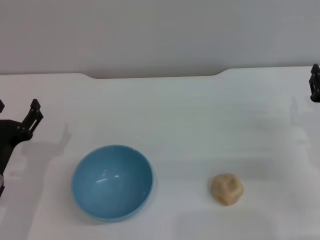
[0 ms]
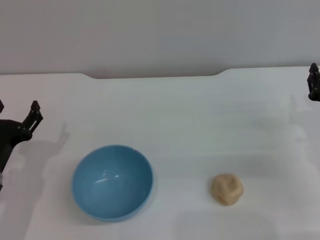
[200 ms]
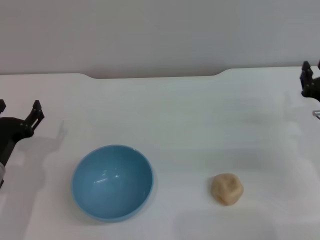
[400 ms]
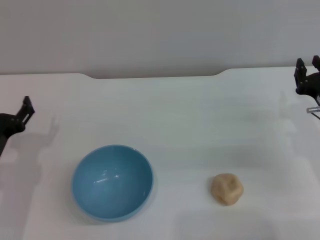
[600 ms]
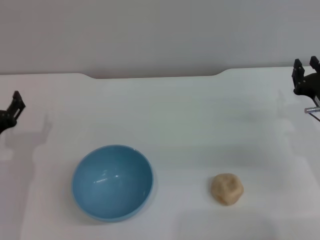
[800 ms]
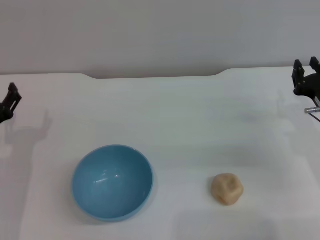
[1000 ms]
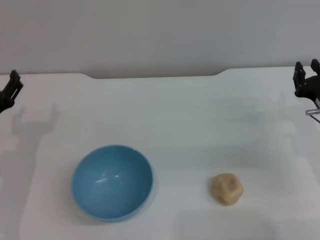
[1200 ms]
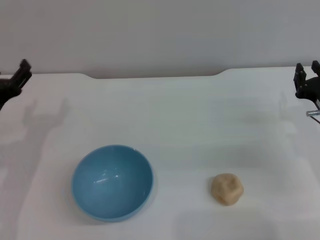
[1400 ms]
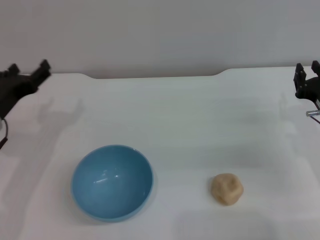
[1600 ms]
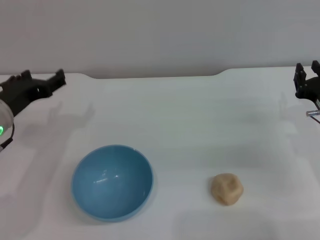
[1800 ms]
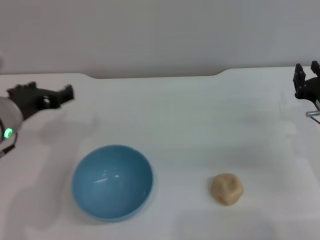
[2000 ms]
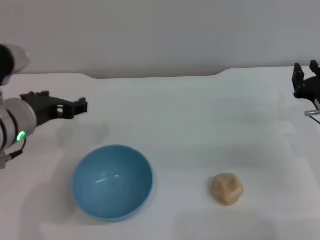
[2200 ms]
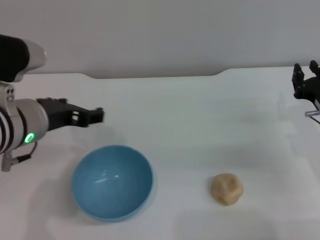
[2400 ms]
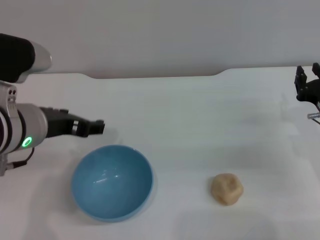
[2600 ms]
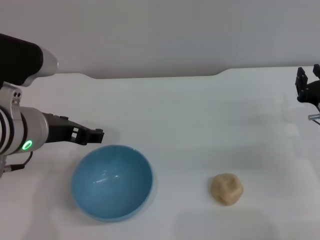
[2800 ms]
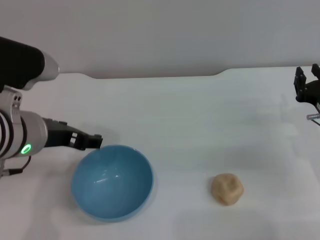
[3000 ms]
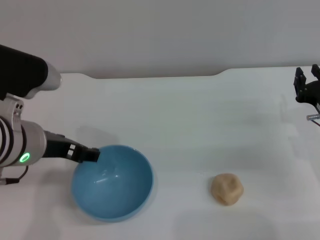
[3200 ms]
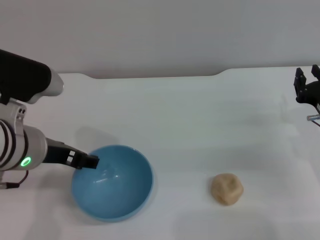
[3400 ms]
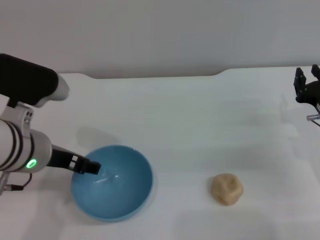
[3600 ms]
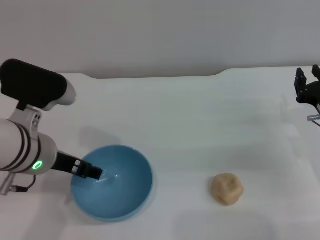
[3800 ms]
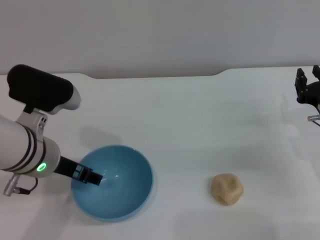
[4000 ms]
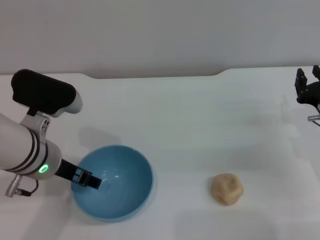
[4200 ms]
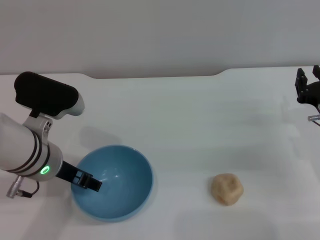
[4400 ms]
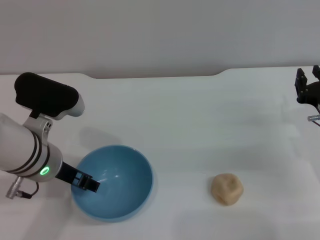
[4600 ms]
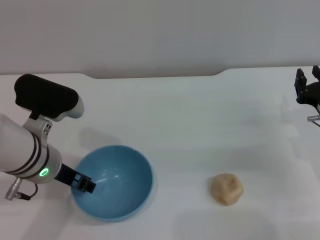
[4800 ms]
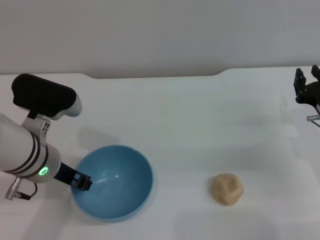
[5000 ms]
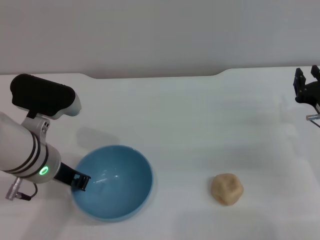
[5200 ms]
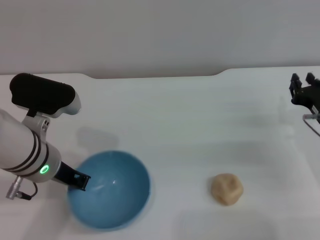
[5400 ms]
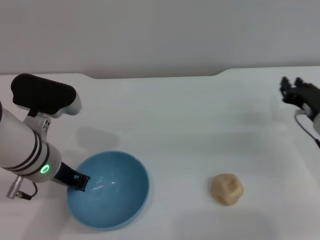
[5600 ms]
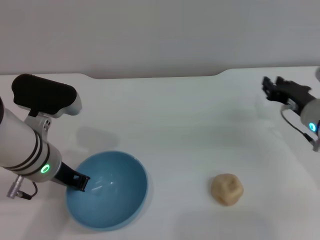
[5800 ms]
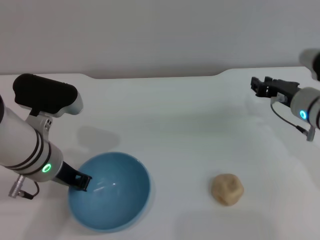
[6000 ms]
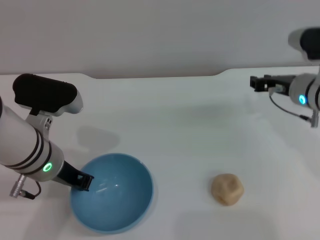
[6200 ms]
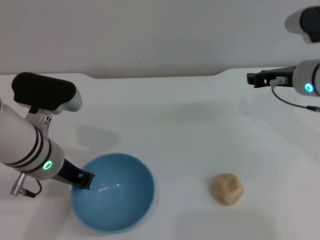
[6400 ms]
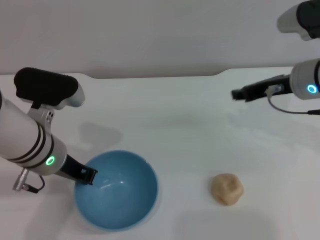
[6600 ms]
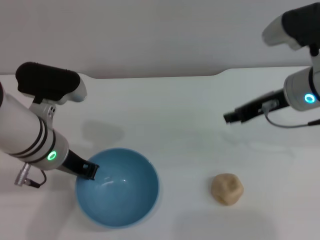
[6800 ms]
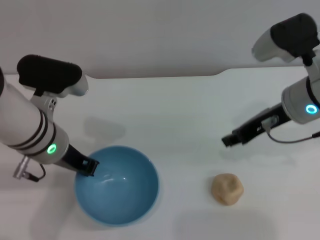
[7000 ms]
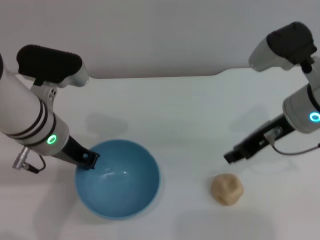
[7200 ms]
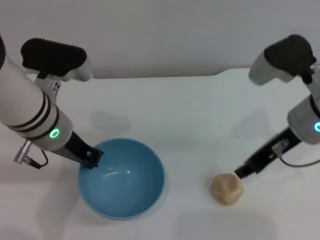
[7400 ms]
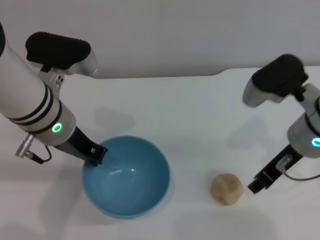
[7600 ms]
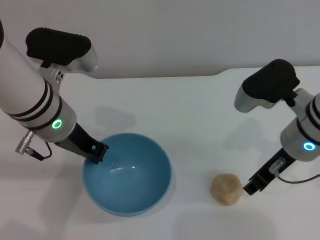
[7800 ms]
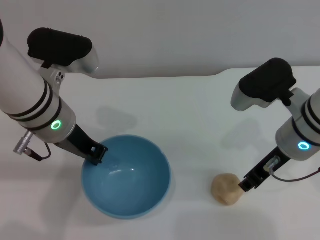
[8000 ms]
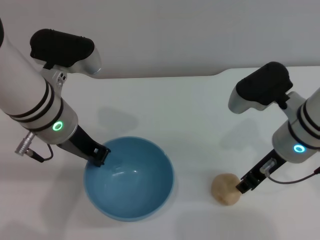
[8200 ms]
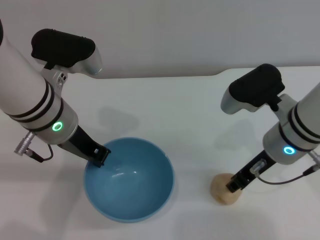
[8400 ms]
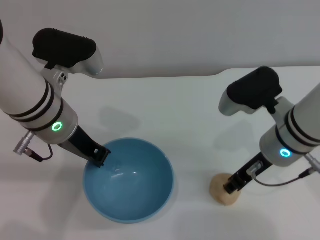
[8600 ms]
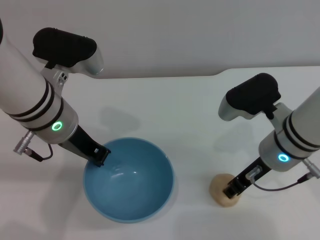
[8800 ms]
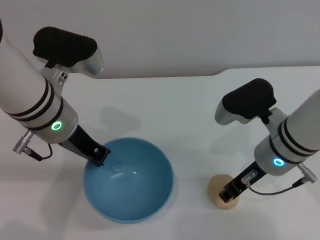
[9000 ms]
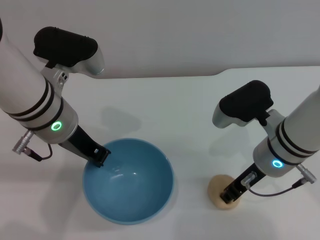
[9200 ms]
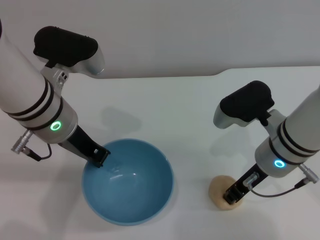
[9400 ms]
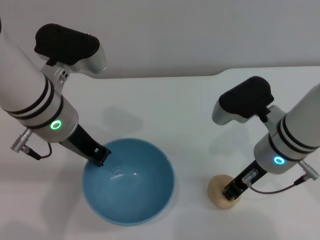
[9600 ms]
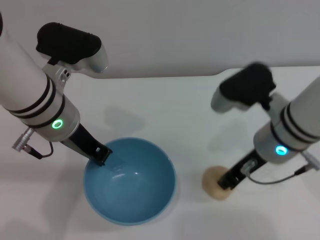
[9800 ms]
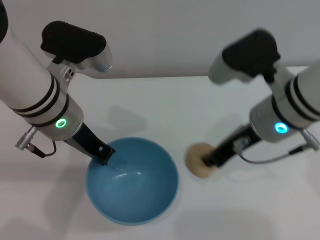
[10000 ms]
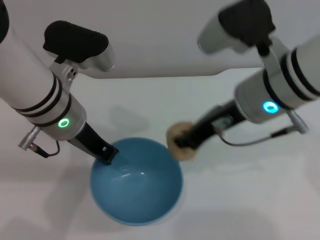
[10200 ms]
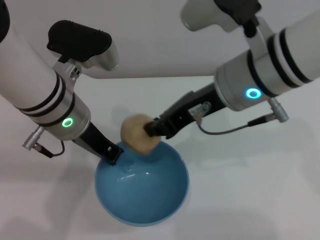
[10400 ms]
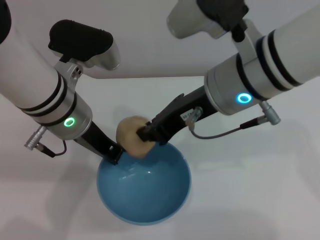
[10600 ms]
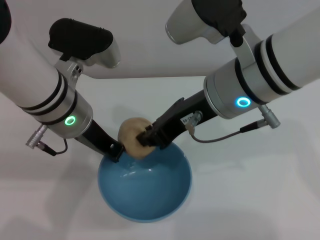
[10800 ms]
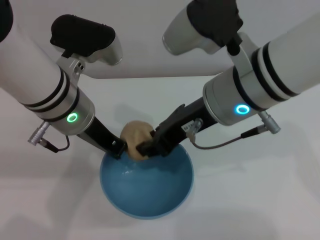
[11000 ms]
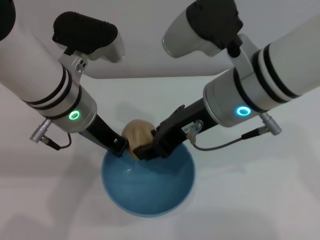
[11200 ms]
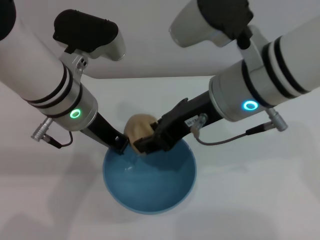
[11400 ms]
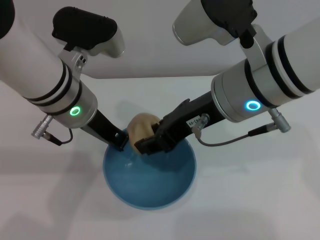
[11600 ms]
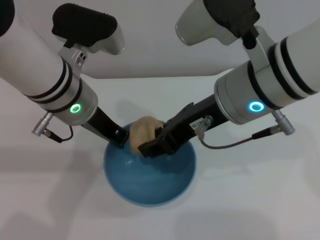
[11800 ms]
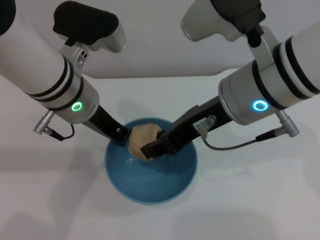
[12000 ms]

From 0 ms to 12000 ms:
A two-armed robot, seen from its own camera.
Task of the whole recording: put the egg yolk pastry into the blue bowl and pour it out repeatedly.
Step, from 0 ms to 7800 ms: Pick up the bowl with the left gripper.
Step, from 8000 ms to 10000 ms: Pick up the egg yolk pastry with the right gripper.
From 0 ms to 1600 ms: The left gripper heads forward and upward, covering approximately 10 cm.
From 1600 ms to 3000 ms: The left gripper travels to the right and upward by roughly 15 cm.
From 3000 ms to 4400 ms: The left gripper shifts about 5 cm downward.
From 4400 ms to 6000 ms: The left gripper closes. Meanwhile the right gripper goes about 5 cm forward.
From 6000 ms to 7600 ms: The right gripper shifts roughly 10 cm upward, backward and to the left. Meanwhile the left gripper is displaced upward by approximately 5 cm.
From 7600 ms to 9000 ms: The right gripper shifts by about 5 cm.
From 9000 ms to 10400 ms: The right gripper travels upward and to the left by roughly 15 cm, and closes up.
From 10400 ms to 12000 ms: The right gripper opens.

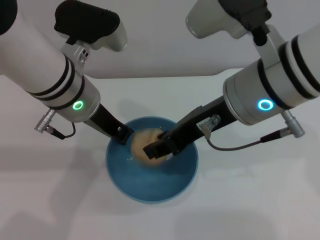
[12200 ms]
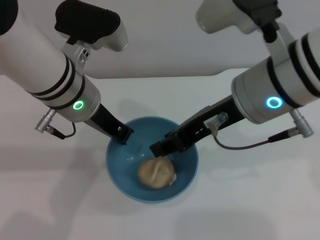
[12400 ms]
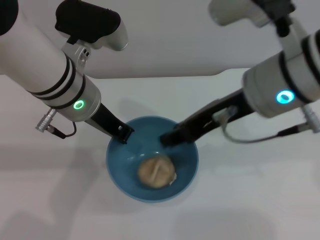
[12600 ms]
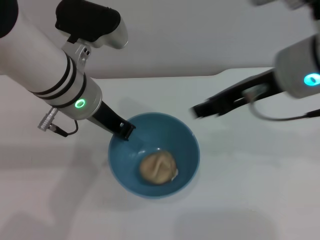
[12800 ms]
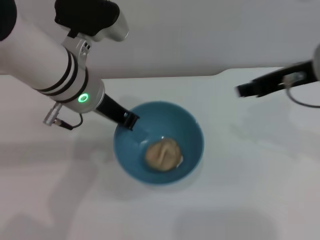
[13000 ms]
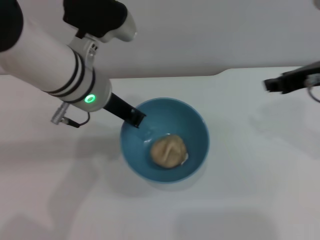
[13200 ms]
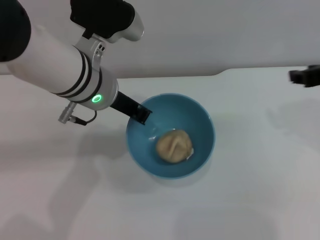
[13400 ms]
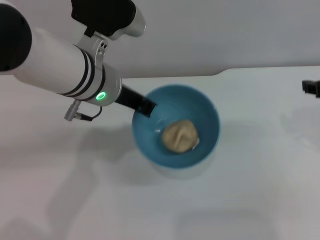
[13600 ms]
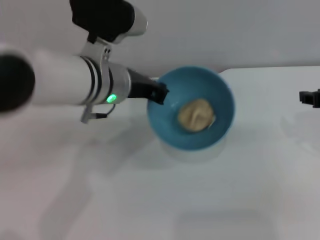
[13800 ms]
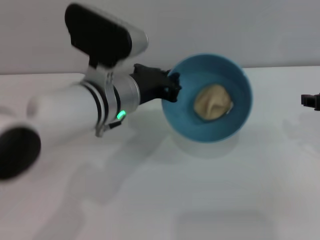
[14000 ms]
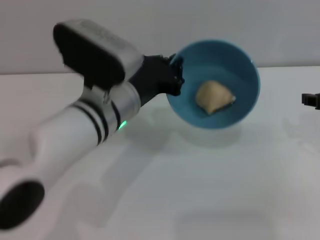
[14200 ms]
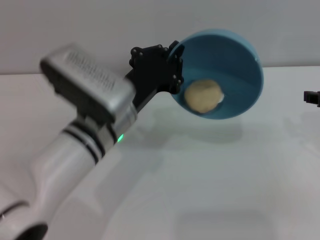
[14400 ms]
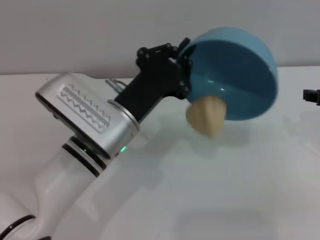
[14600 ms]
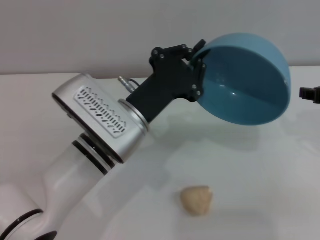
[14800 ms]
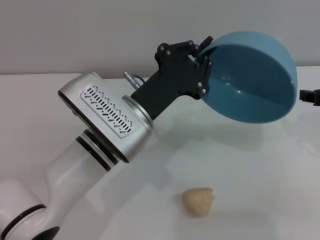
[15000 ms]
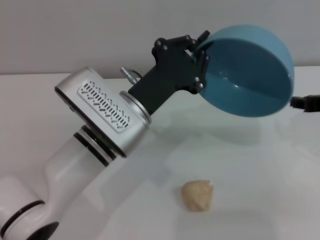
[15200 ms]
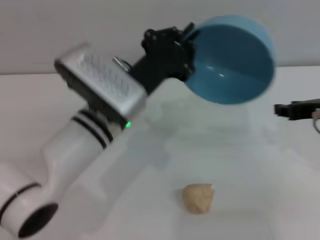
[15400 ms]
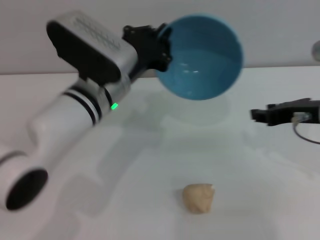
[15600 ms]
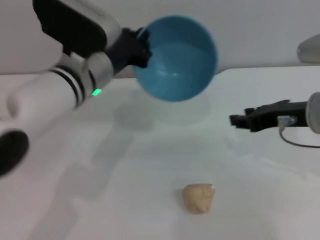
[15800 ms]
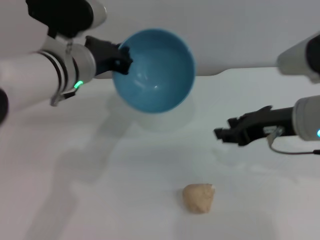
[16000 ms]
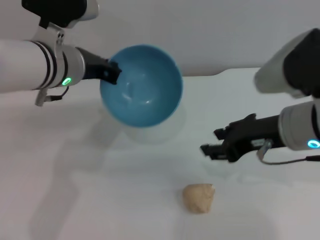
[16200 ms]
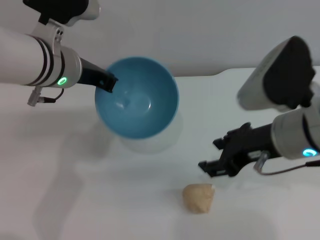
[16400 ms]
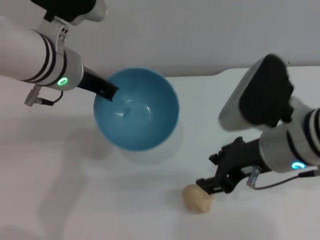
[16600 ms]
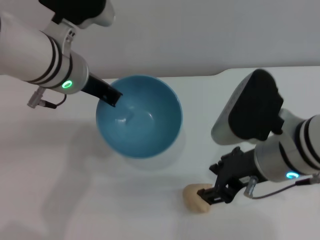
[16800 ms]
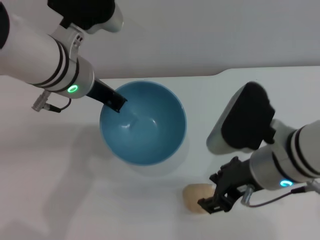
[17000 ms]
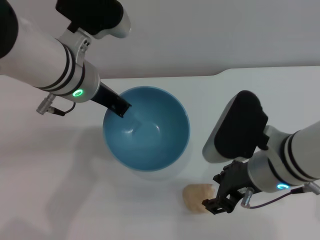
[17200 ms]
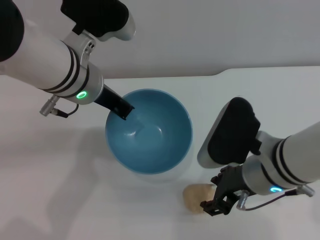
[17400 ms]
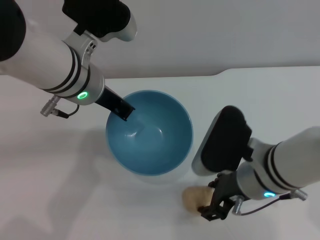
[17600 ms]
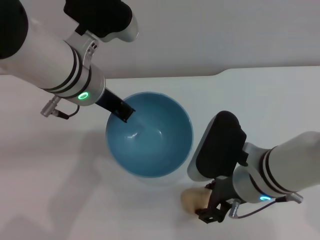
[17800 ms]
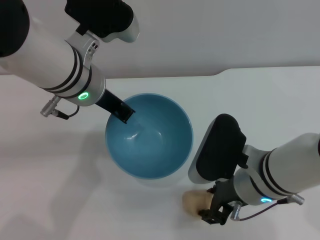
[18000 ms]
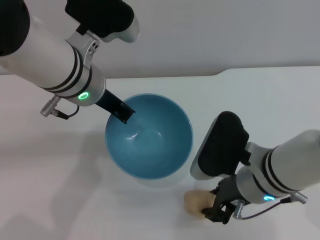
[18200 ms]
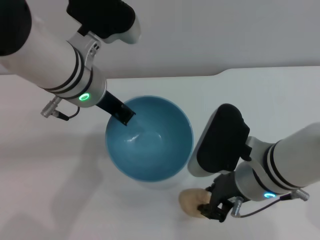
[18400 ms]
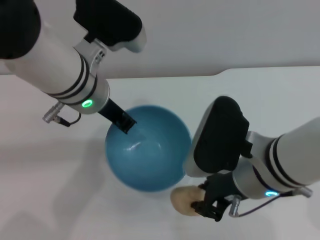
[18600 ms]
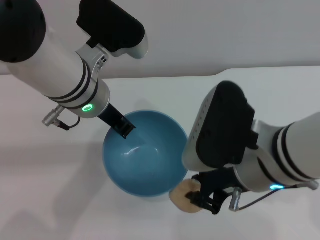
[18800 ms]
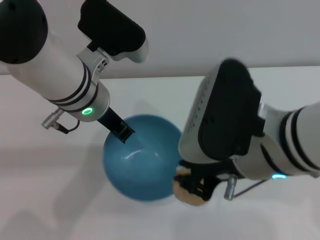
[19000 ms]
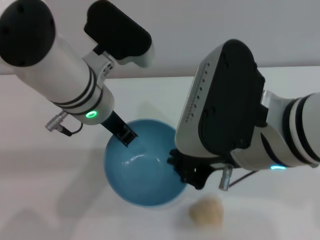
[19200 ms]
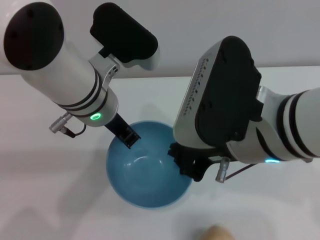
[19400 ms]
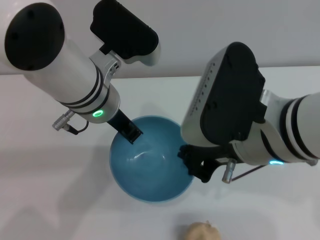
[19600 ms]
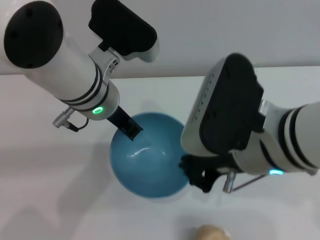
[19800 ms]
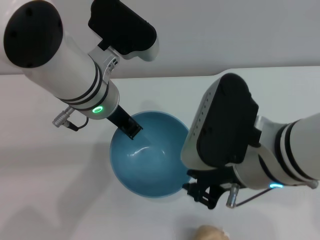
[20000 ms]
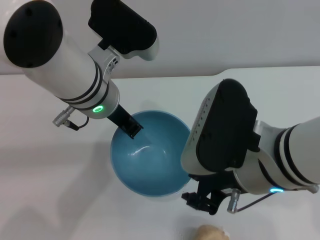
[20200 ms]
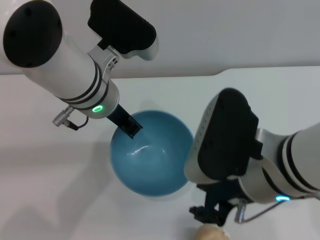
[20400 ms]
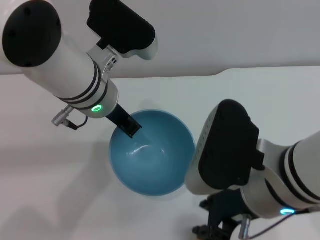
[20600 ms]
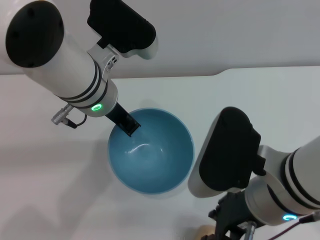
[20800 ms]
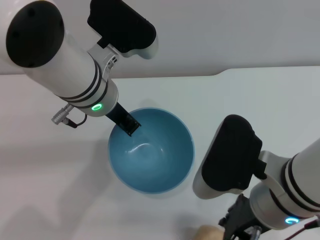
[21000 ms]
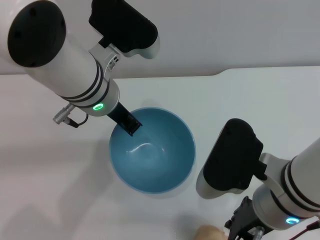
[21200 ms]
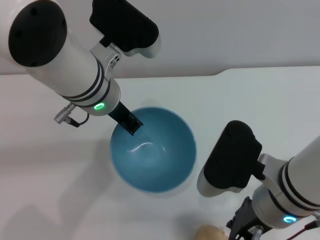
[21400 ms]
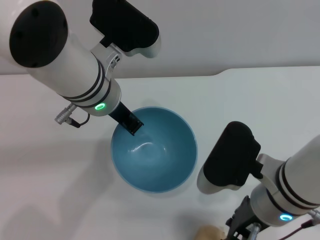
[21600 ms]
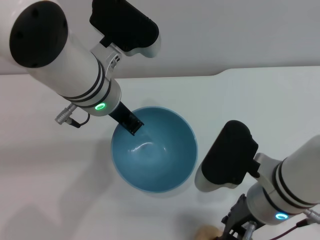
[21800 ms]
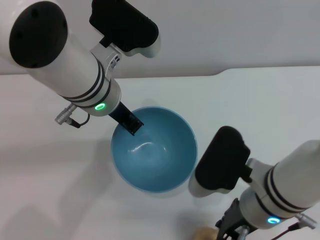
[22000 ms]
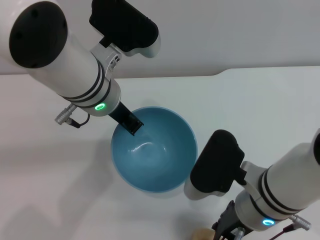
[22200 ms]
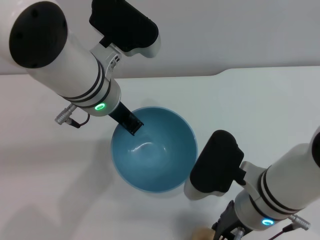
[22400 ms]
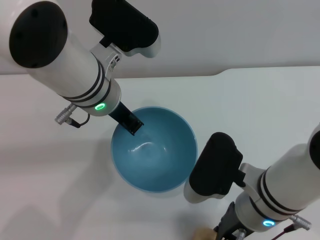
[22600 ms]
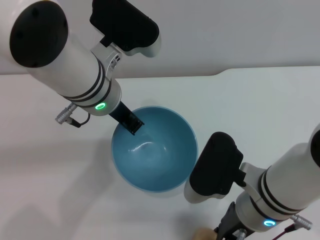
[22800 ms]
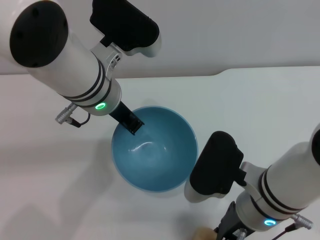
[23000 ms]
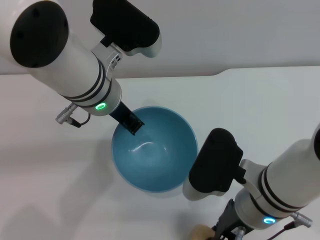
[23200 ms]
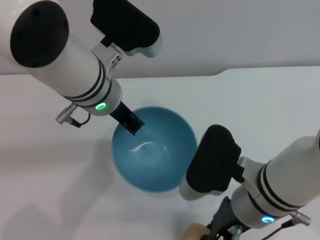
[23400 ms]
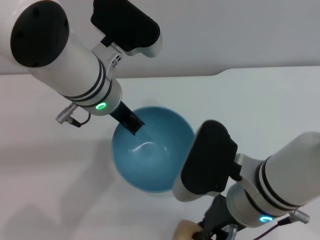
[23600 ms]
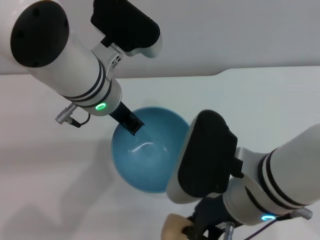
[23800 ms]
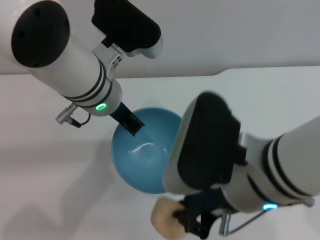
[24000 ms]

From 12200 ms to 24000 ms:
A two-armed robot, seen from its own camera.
Task of the whole recording: put the egg yolk pastry into the blue bowl and pour it out repeatedly.
Step, from 12800 ms to 14800 ms: Pour the egg yolk pastry out of bowl.
Step, from 15000 ms to 24000 ms: Pick up the egg yolk pastry with the right gripper.
From 12200 ms to 13600 ms: The right gripper travels to the right by about 20 cm.
From 13600 ms to 15200 ms: The left gripper goes about 10 cm downward and backward.
From 15200 ms to 16600 ms: The right gripper heads to the left, covering roughly 15 cm. Meanwhile the left gripper goes some 15 cm upward, forward and to the left.
From 16600 ms to 18200 ms: The right gripper heads downward, covering approximately 5 cm.
From 18200 ms to 19600 ms: The right gripper travels upward by about 10 cm, and closes.
From 19600 ms to 21000 ms: The right gripper shifts roughly 5 cm downward, and opens.
From 21000 ms to 22600 ms: The right gripper moves downward, roughly 5 cm.
From 22600 ms to 24000 ms: The right gripper goes about 10 cm upward, and closes up.
